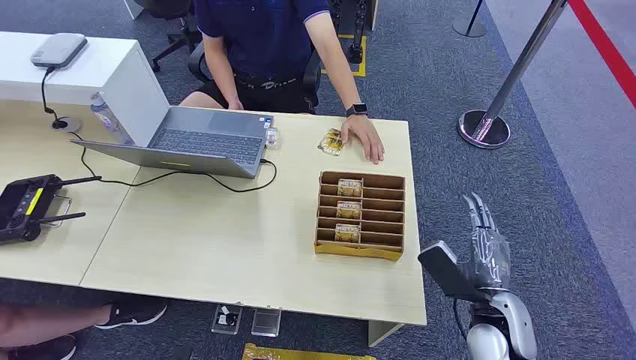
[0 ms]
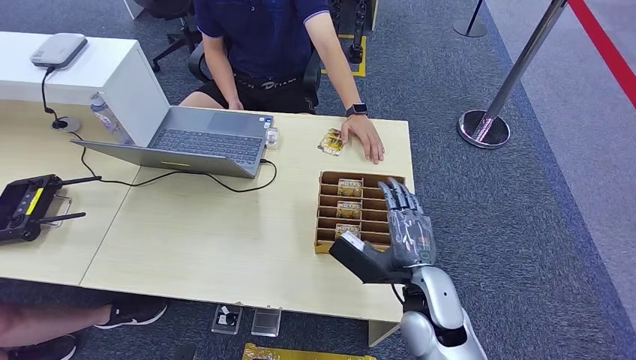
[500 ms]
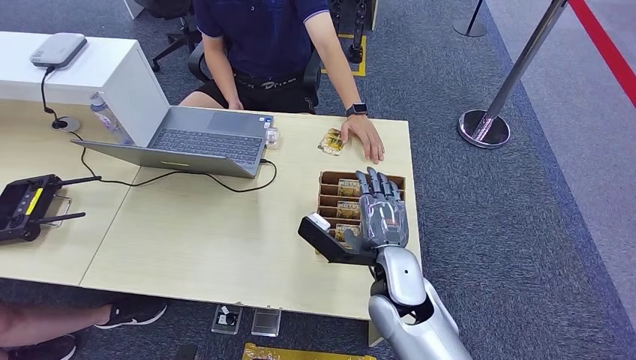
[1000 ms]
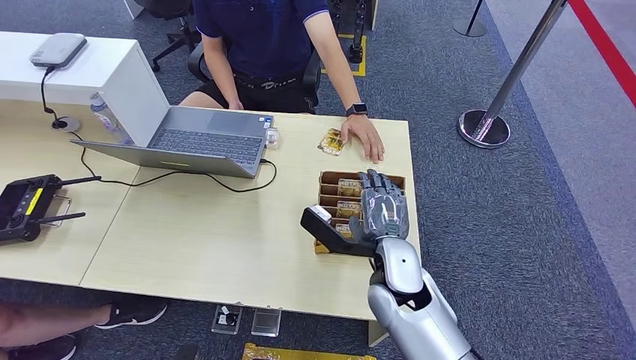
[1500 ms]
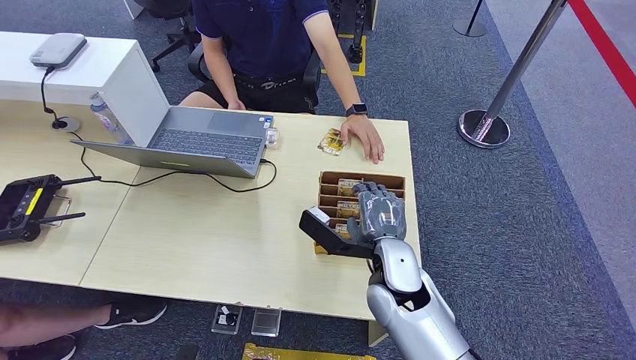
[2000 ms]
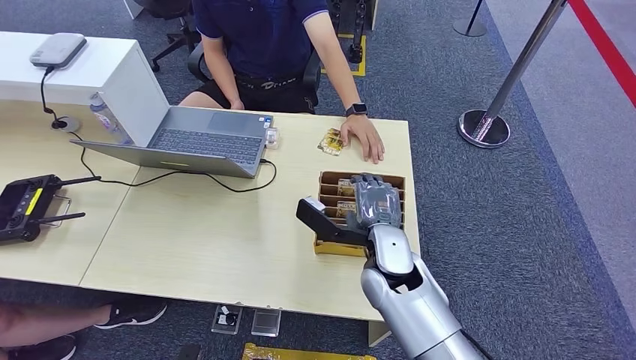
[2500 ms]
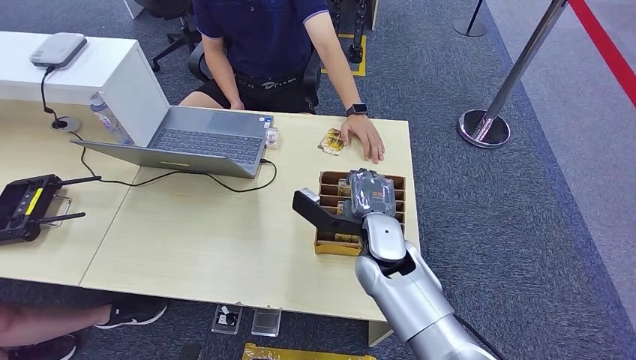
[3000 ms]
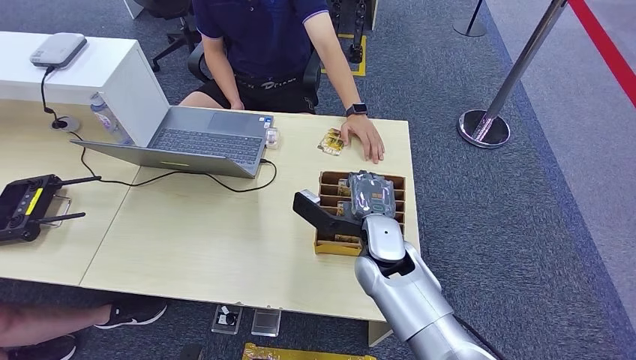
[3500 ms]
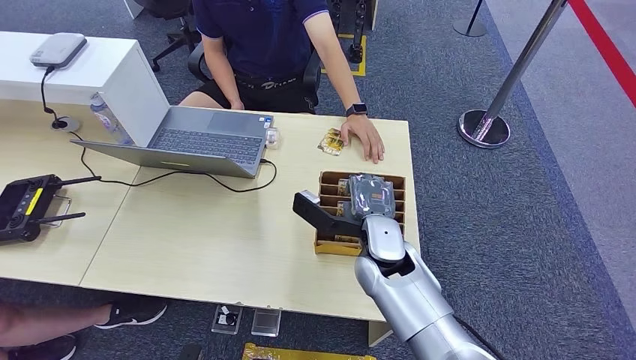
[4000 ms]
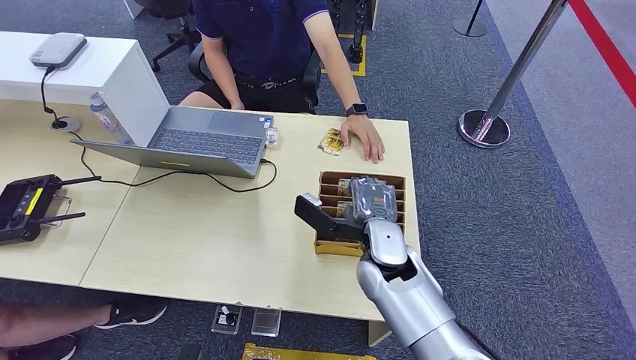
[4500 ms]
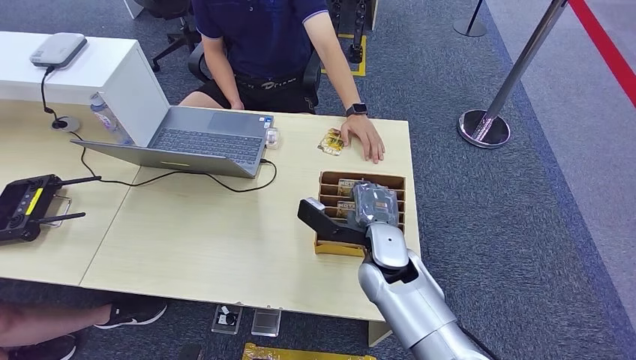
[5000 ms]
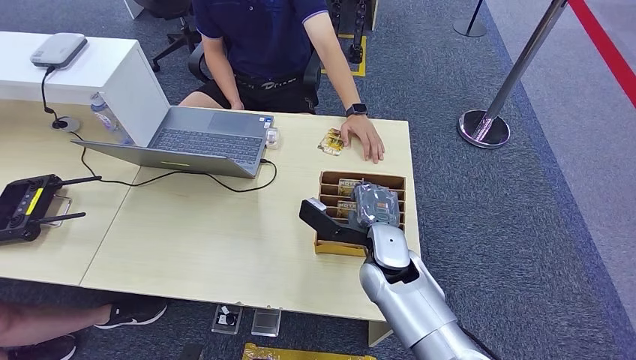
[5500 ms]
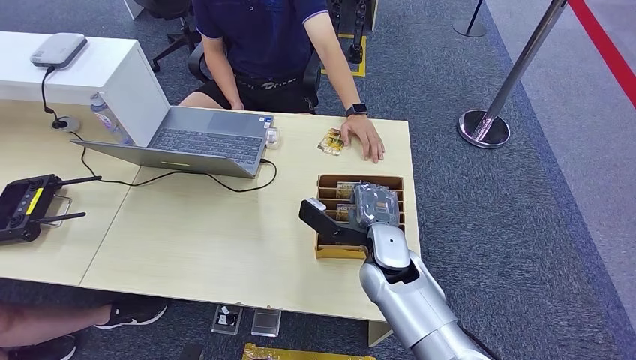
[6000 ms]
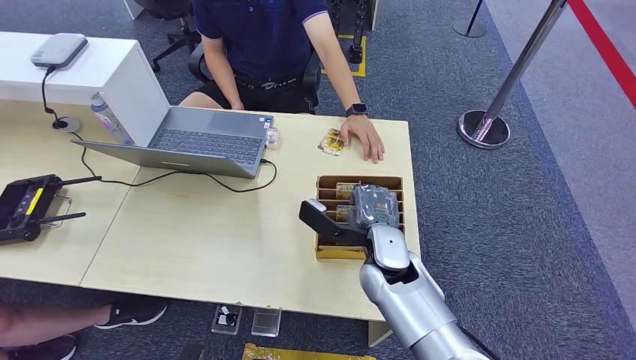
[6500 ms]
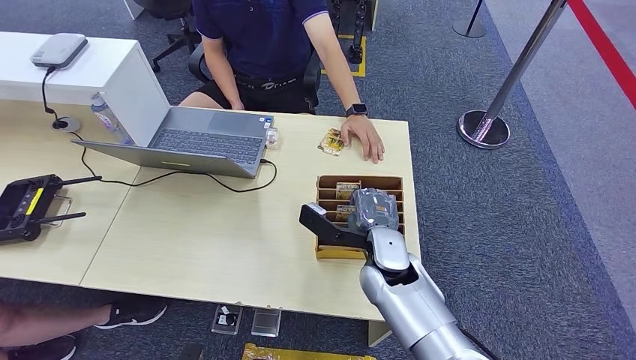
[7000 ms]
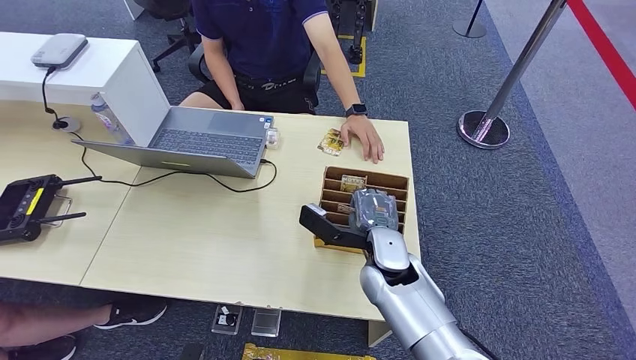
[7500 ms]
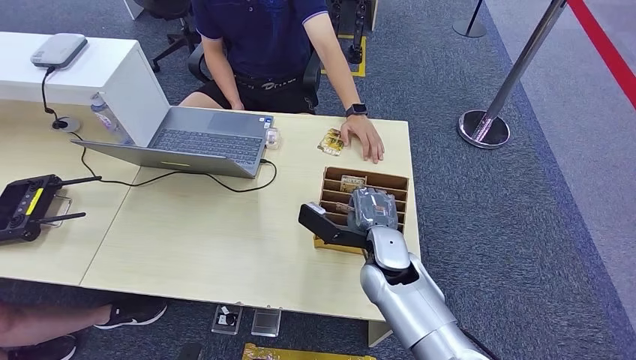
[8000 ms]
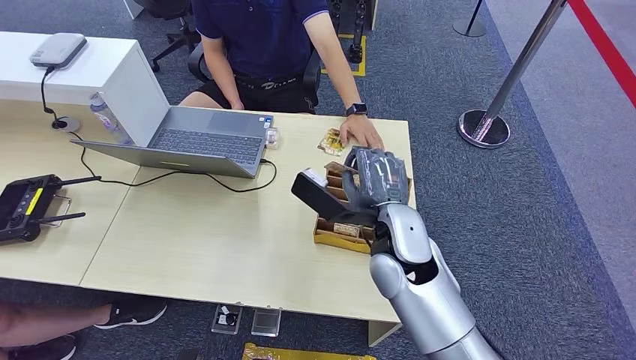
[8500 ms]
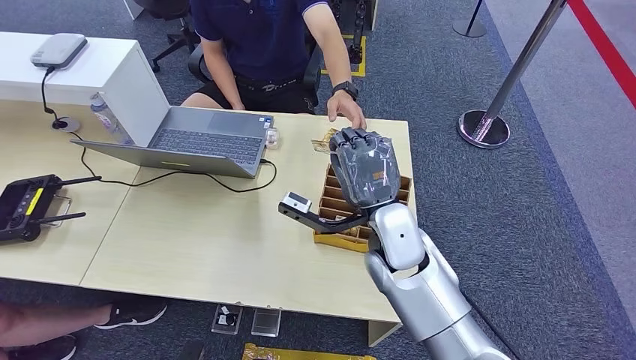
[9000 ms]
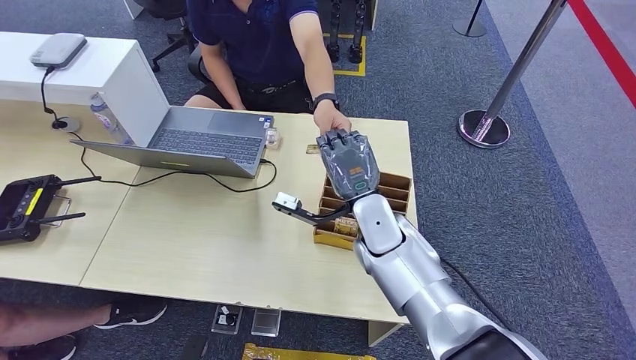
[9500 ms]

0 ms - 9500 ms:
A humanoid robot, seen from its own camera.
Step, 0 ms - 8000 ms: Pick up the key card from the card box.
Step, 8500 ms - 9500 ms: Hand the key card to the target.
2000 ms - 5500 ms: The hands make only small movements.
5500 ms - 7500 ms: Both hands stay put.
7500 ms - 9500 ms: The right hand is displaced upward by about 5 cm.

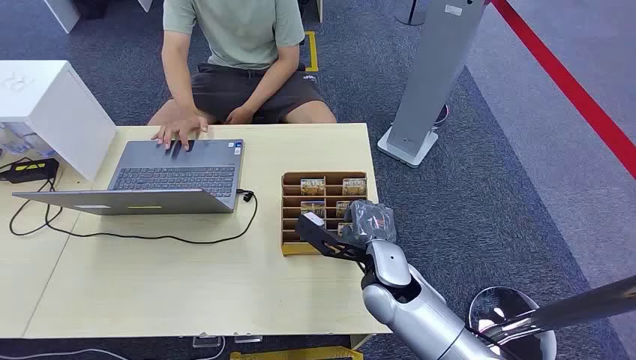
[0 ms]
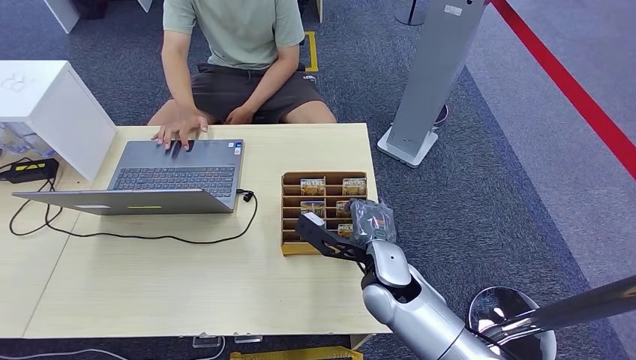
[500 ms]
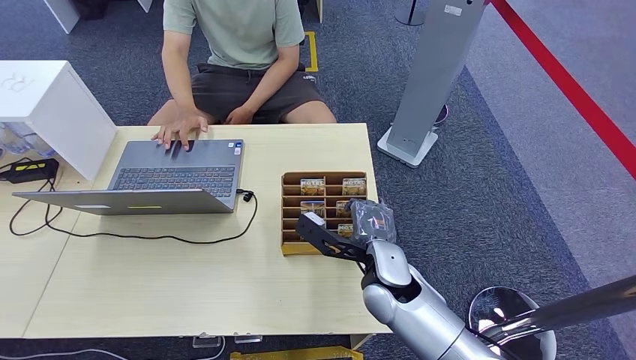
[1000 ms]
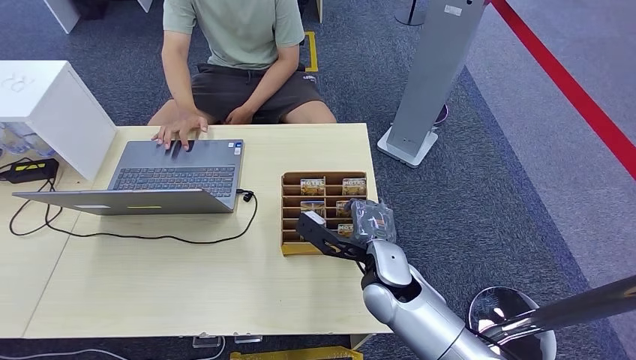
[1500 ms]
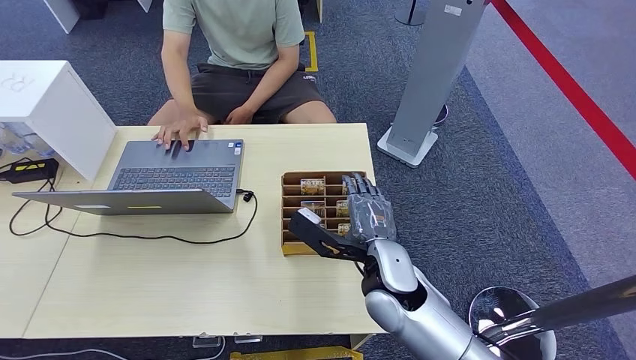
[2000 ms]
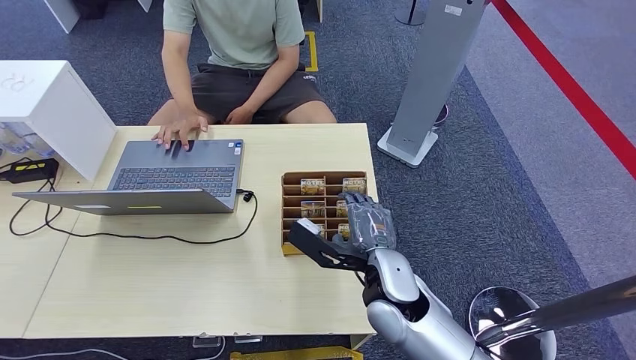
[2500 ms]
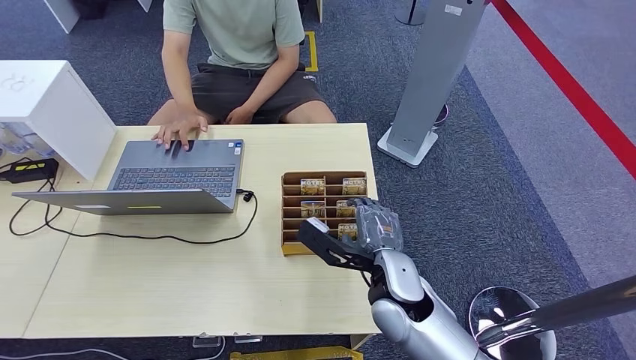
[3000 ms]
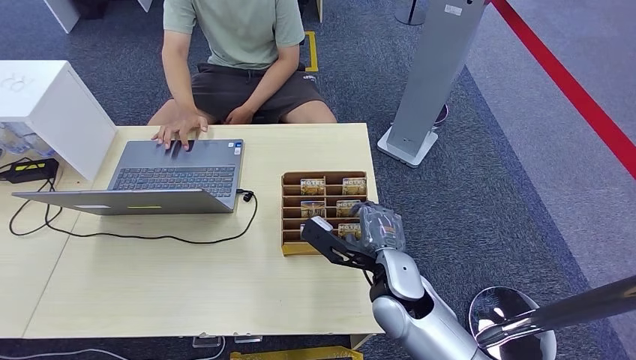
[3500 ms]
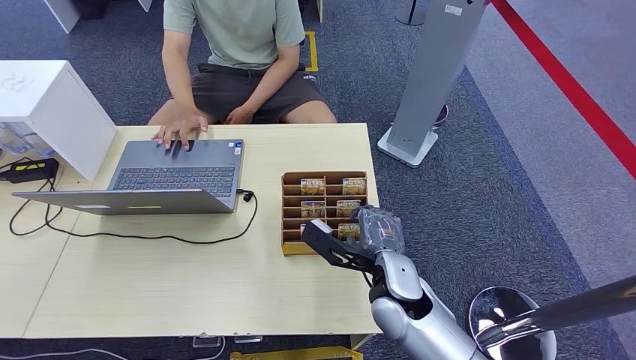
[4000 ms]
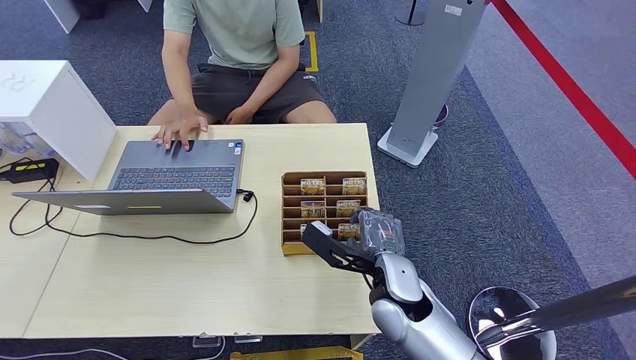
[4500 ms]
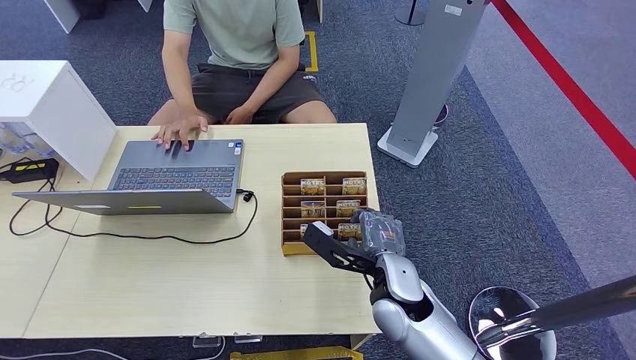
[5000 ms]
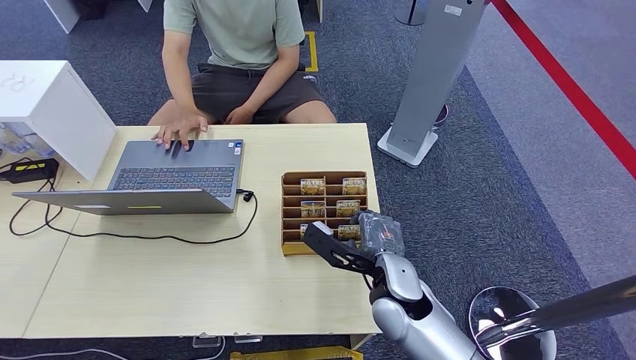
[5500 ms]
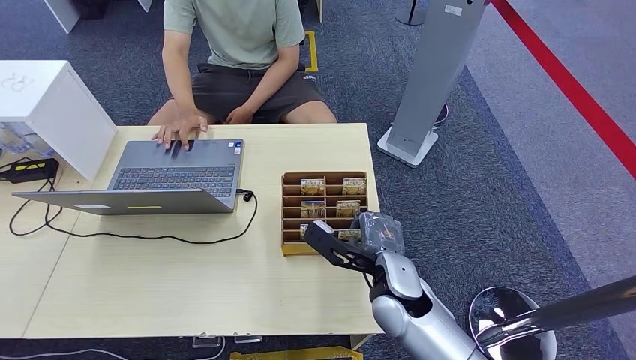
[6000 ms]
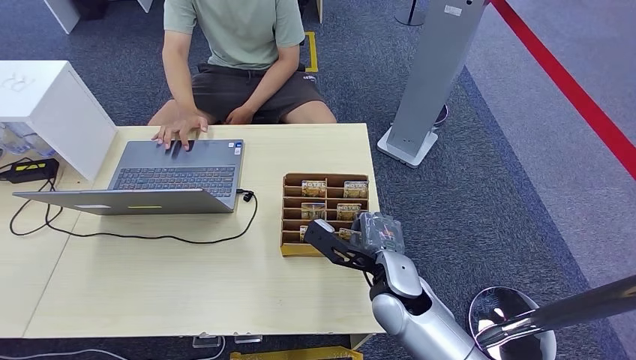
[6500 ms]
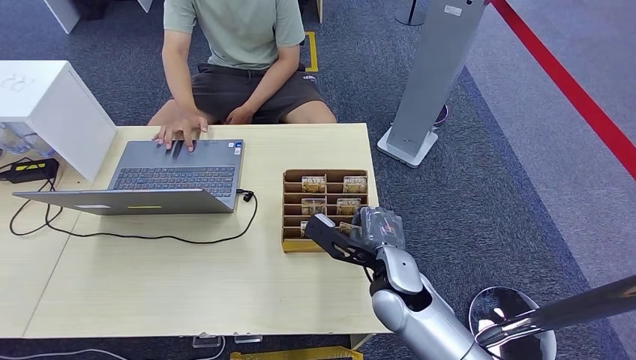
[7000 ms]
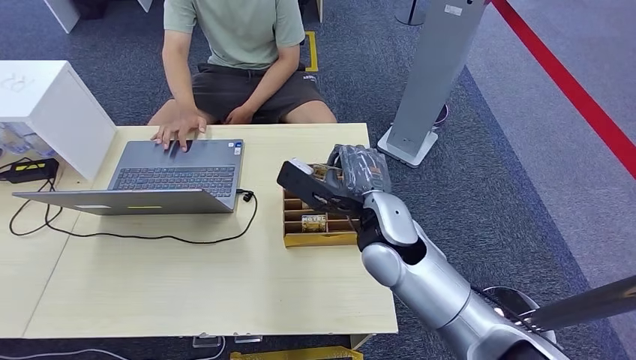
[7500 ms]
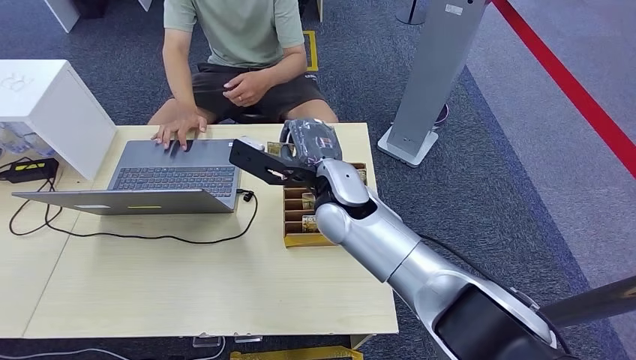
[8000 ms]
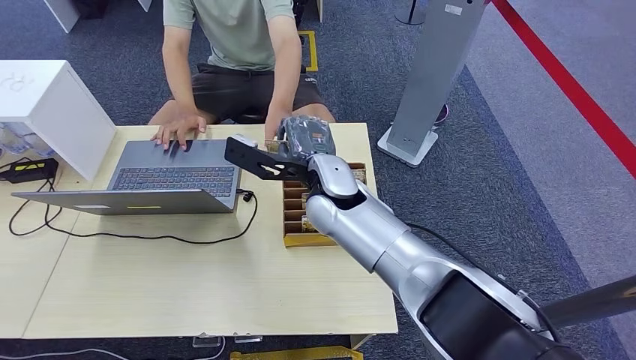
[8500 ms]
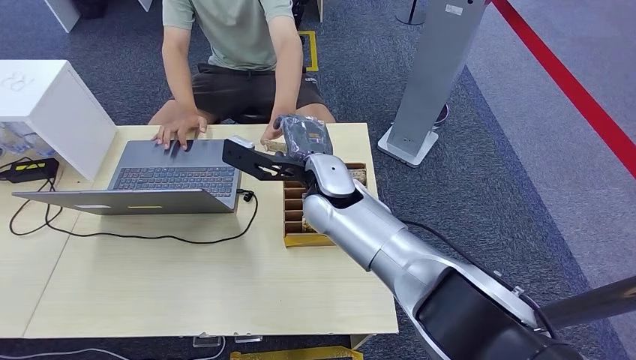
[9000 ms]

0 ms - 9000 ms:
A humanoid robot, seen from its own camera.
Step, 0 ms - 7500 ms: Pick up the key card from the card box.
Step, 8000 ms - 9000 ms: Hand the key card to the target.
2000 ms - 4500 ms: The hands move only a little.
4500 ms - 7000 ms: Neither hand changes place.
7000 ms - 9000 ms: The right hand is displaced to the left, upward and forward by approximately 20 cm.

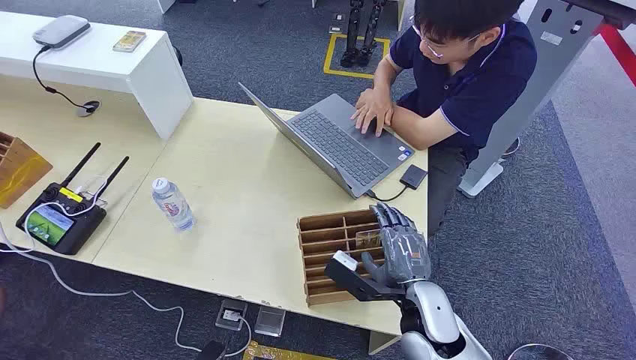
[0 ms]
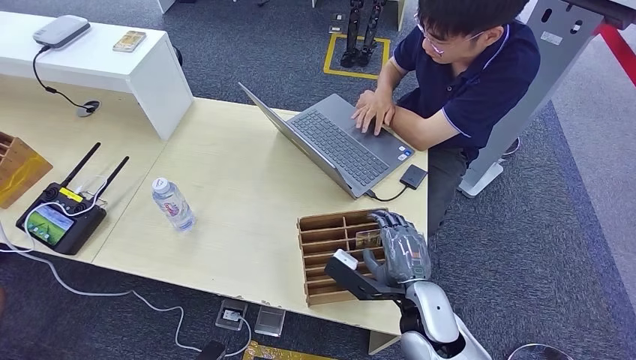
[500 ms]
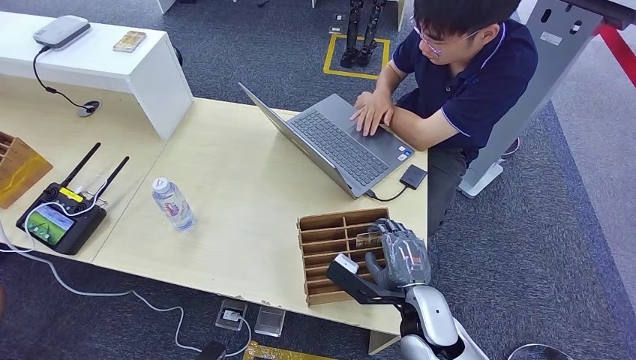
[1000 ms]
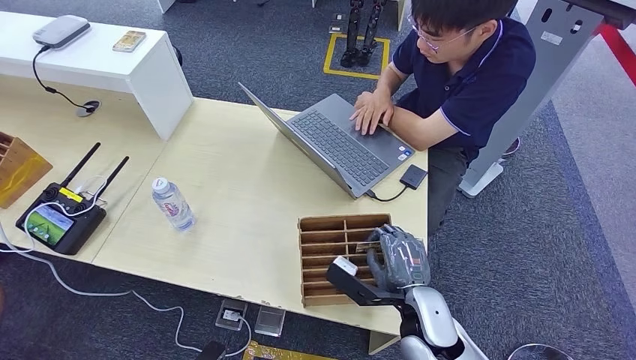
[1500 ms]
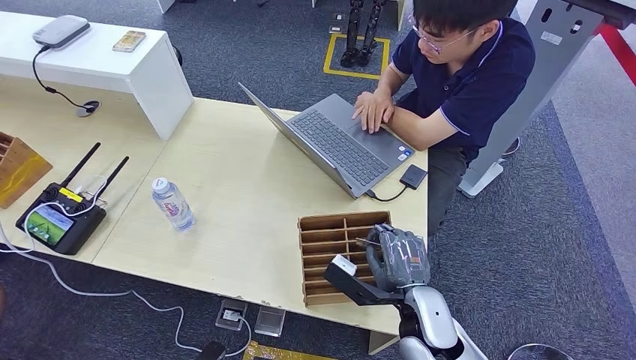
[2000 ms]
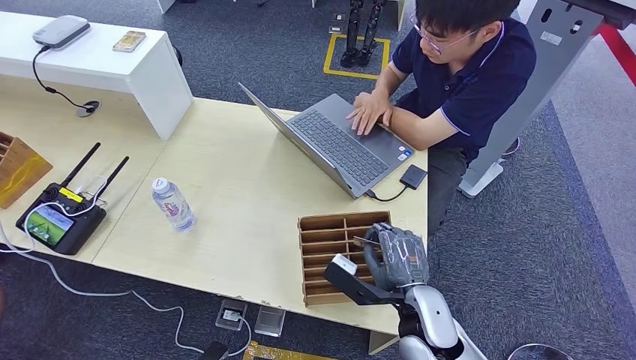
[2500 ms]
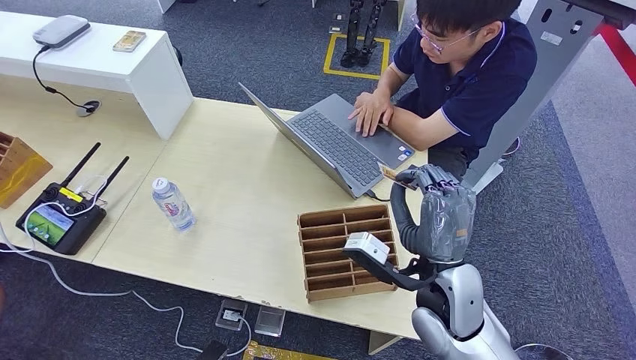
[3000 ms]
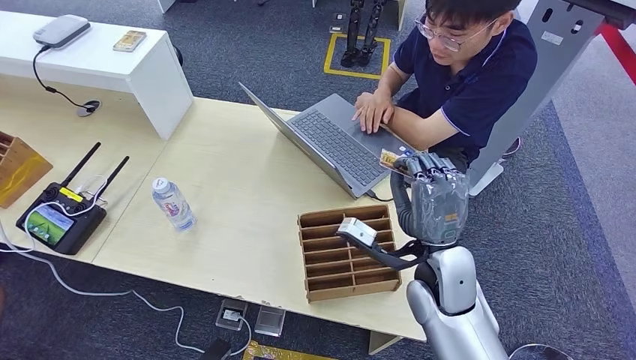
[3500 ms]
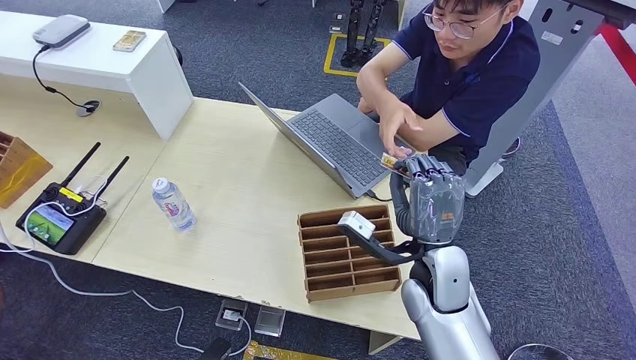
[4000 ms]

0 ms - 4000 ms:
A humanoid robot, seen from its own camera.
Step, 0 ms - 3000 ms: Pick up the key card from the card box.
2000 ms - 4000 ms: The right hand heads upward and forward, covering roughly 10 cm.
